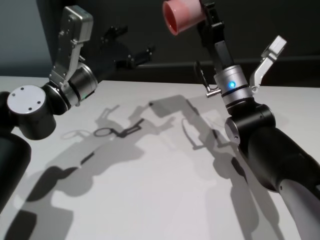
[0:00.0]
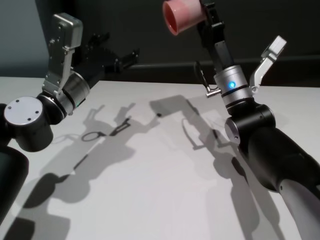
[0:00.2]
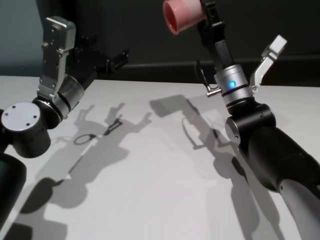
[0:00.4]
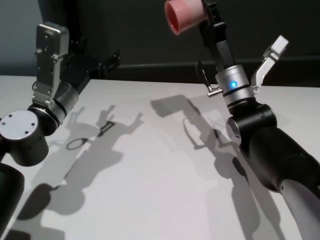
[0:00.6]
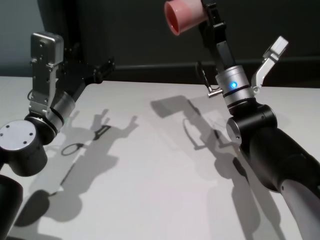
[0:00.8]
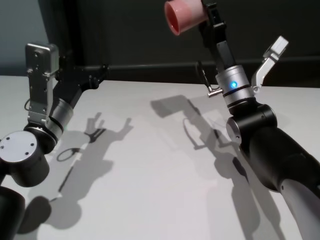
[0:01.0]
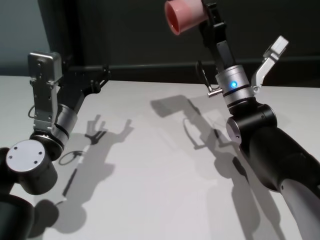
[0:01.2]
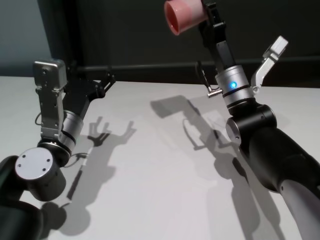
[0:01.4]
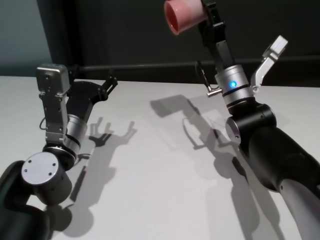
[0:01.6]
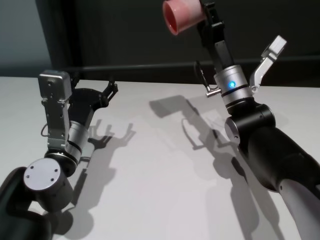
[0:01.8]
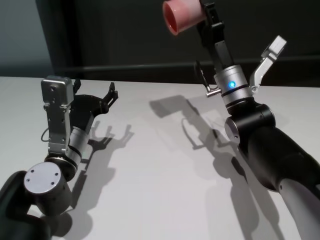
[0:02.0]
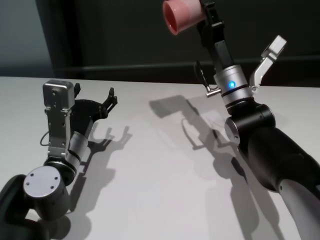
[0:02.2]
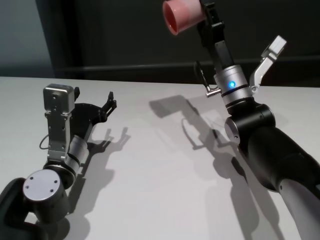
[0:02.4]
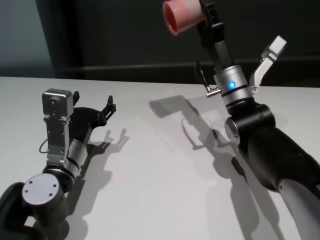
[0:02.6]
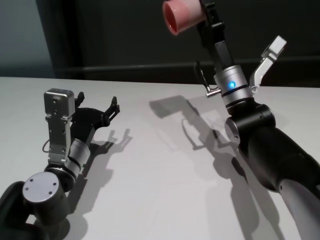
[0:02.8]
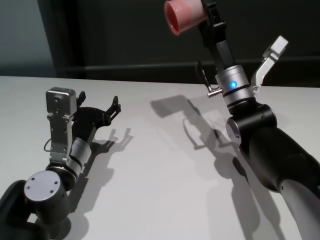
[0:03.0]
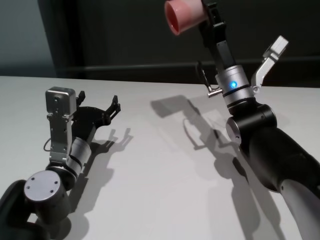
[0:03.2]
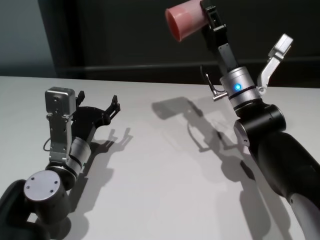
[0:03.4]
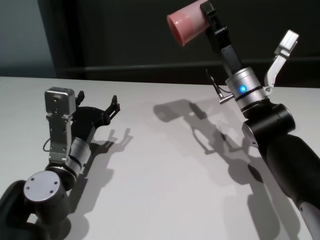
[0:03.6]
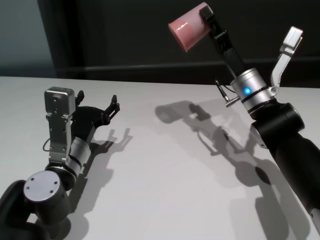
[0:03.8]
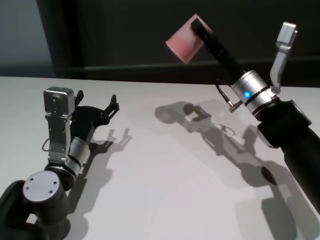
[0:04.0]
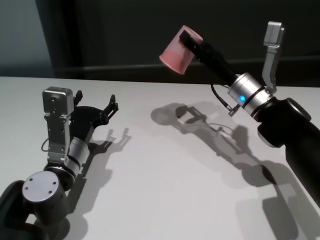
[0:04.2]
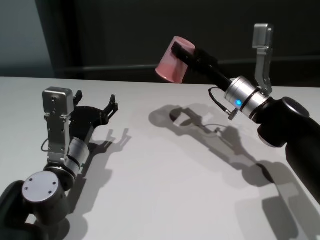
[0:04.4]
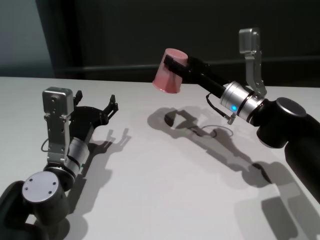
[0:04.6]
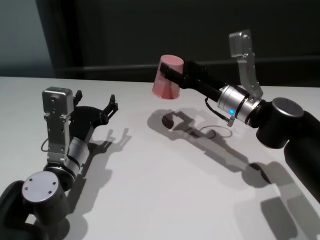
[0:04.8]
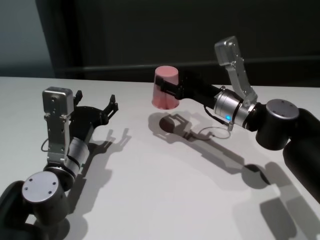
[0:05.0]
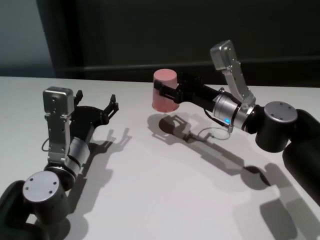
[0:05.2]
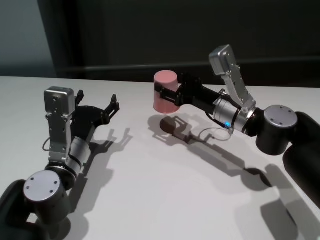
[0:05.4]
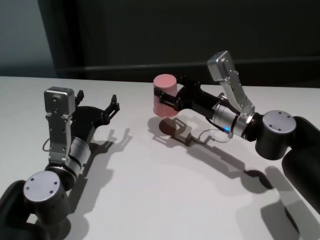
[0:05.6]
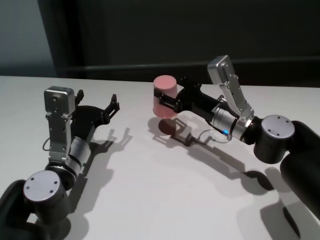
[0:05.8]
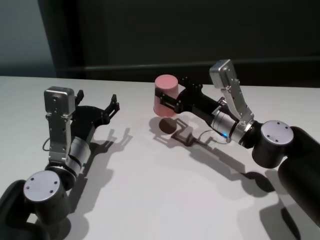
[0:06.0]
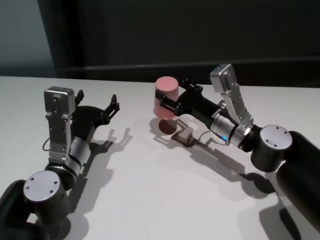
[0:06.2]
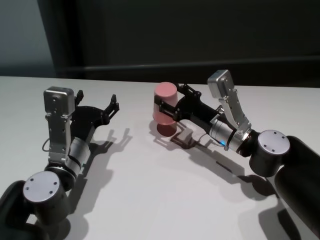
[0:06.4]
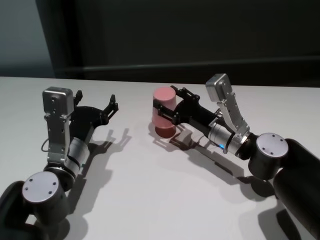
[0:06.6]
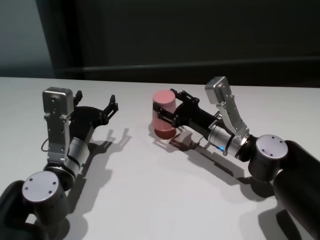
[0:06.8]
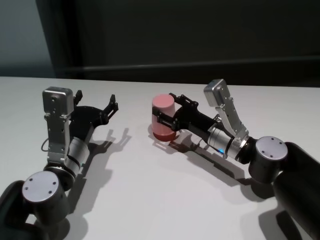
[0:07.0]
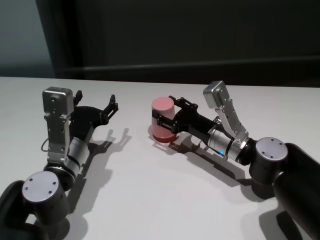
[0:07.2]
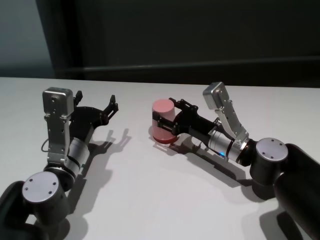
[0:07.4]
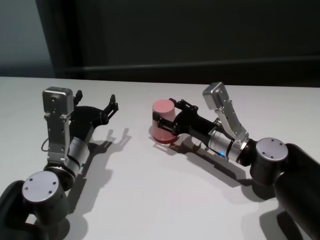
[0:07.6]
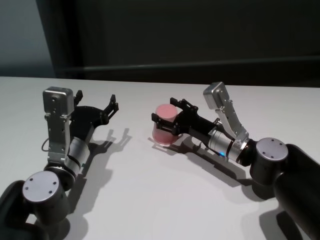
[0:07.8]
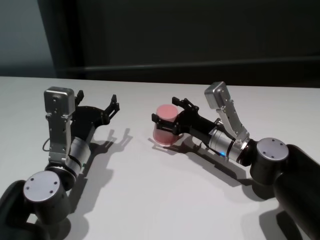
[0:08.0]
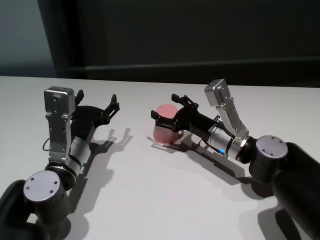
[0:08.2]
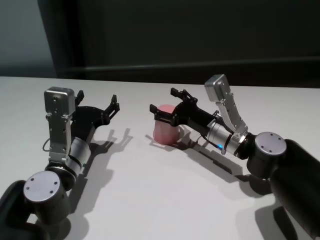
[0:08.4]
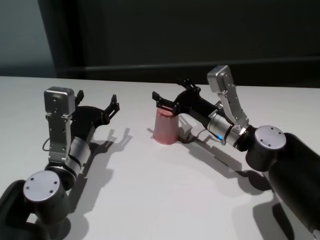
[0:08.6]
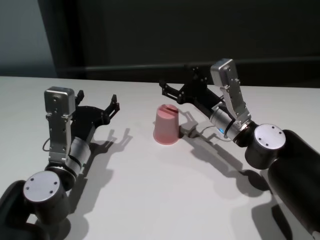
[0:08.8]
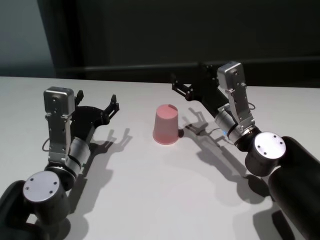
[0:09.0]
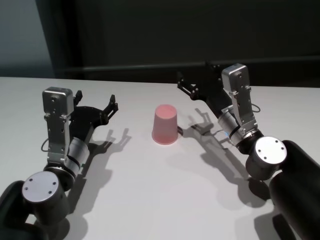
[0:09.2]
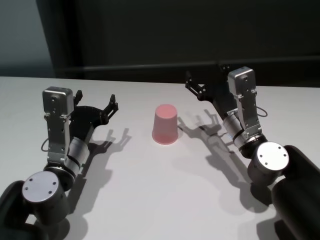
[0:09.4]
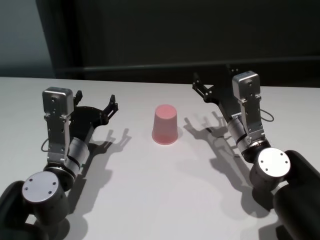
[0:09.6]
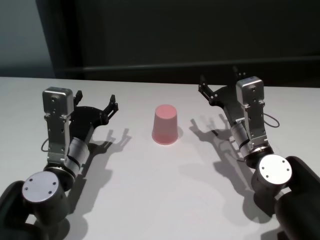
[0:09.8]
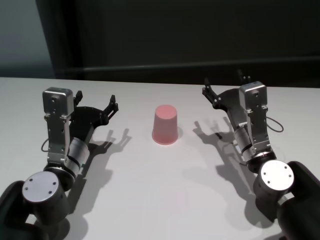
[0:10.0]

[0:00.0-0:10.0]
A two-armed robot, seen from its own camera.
Task of the whole recording: On the white table pick up the cup with one hand and transfer it to the other hand before turning it over.
Step, 0:00.0 to 0:08.2: Place the cup on the table with right gripper.
